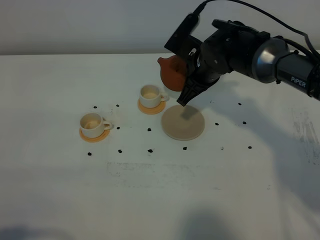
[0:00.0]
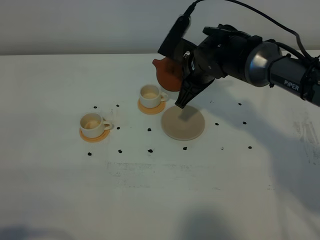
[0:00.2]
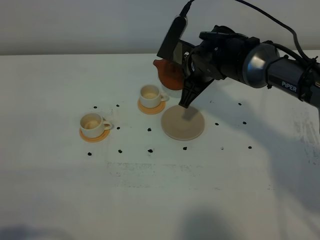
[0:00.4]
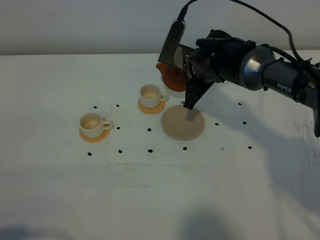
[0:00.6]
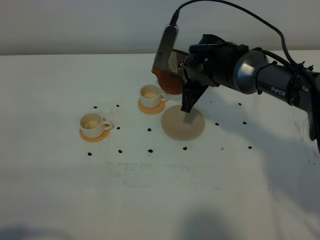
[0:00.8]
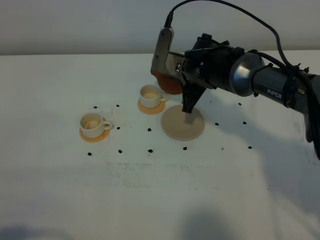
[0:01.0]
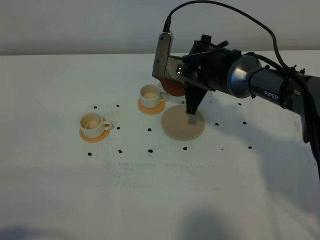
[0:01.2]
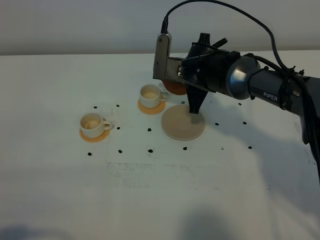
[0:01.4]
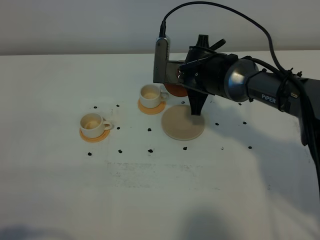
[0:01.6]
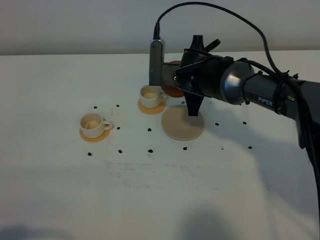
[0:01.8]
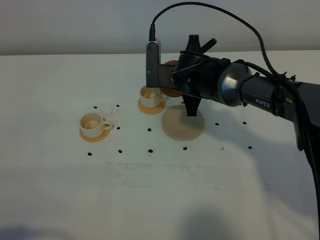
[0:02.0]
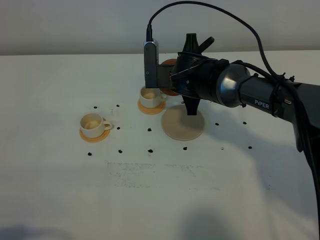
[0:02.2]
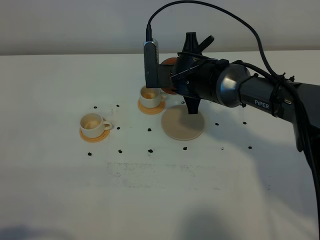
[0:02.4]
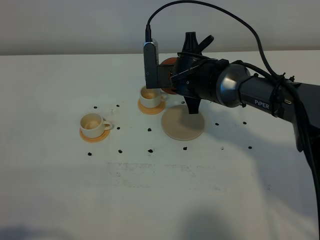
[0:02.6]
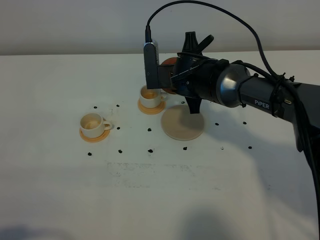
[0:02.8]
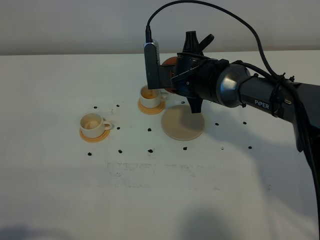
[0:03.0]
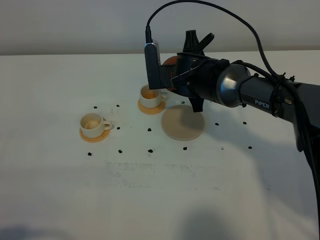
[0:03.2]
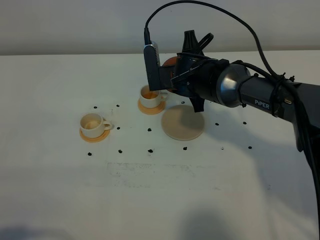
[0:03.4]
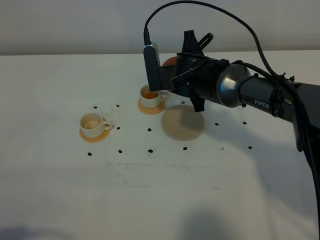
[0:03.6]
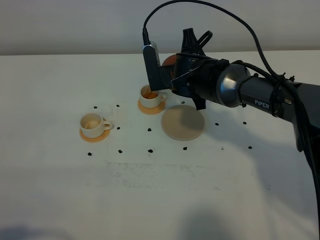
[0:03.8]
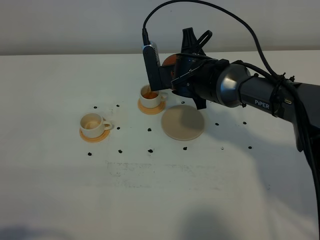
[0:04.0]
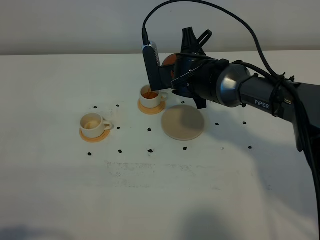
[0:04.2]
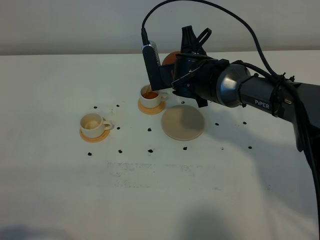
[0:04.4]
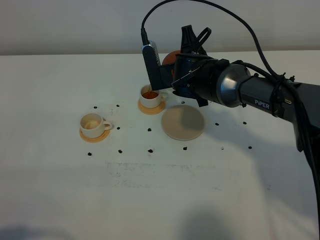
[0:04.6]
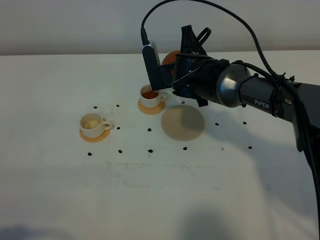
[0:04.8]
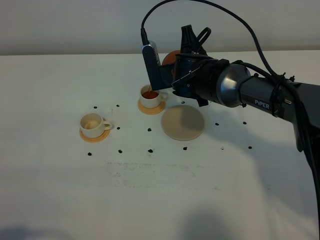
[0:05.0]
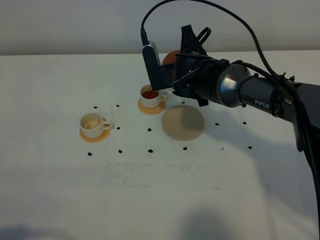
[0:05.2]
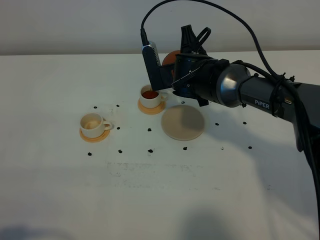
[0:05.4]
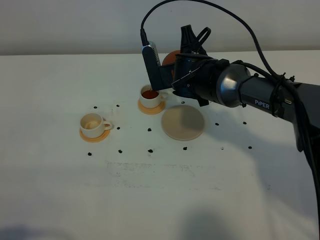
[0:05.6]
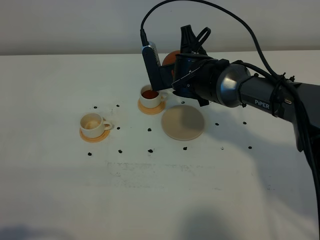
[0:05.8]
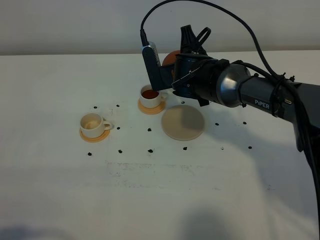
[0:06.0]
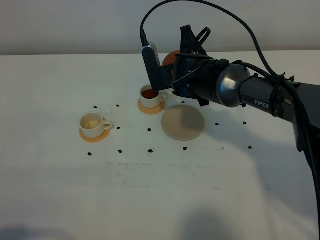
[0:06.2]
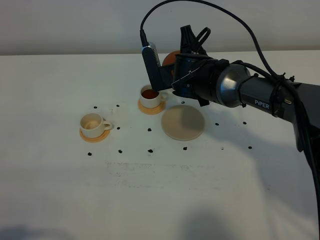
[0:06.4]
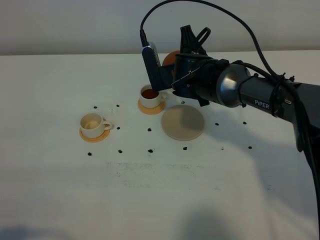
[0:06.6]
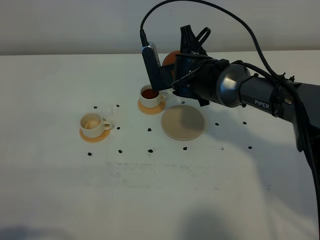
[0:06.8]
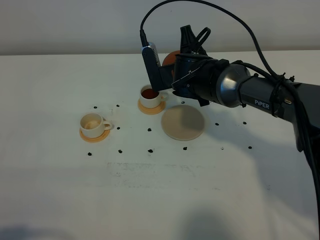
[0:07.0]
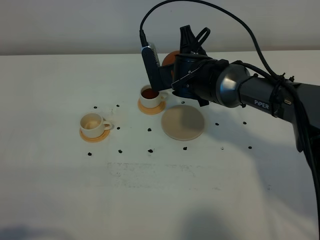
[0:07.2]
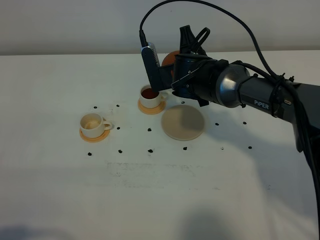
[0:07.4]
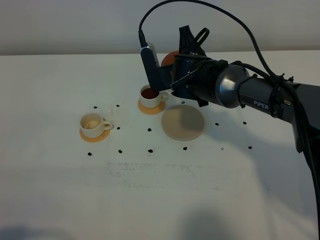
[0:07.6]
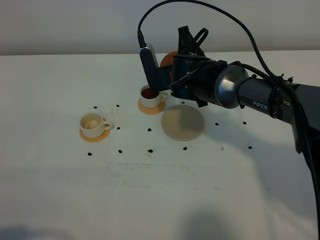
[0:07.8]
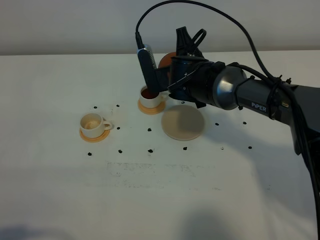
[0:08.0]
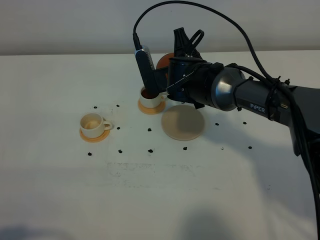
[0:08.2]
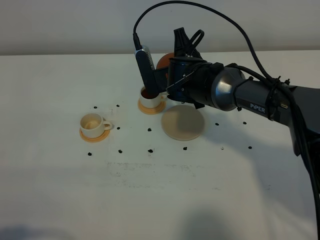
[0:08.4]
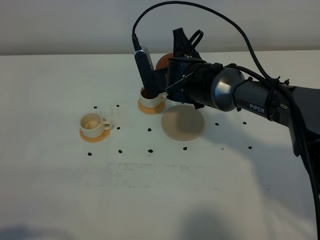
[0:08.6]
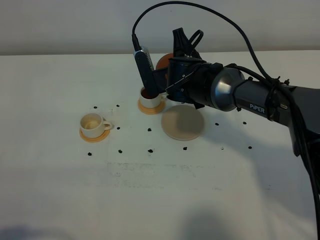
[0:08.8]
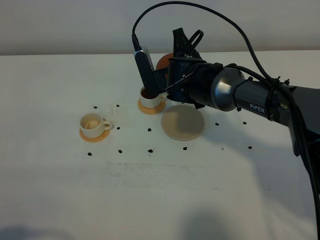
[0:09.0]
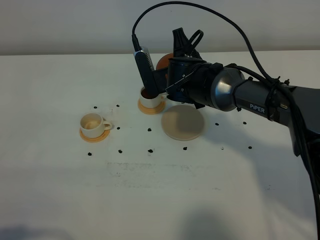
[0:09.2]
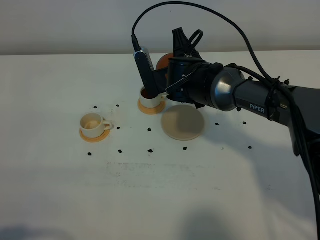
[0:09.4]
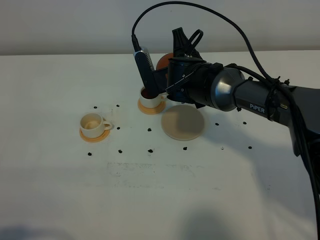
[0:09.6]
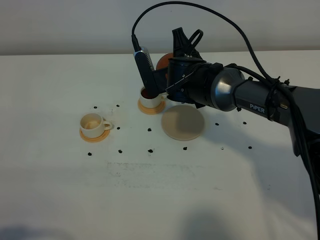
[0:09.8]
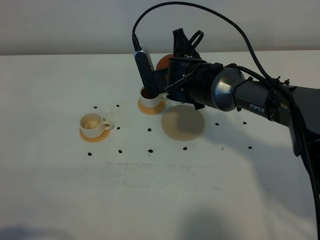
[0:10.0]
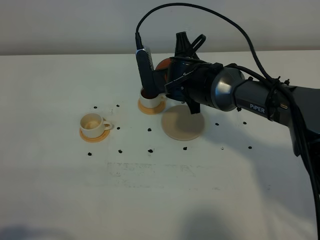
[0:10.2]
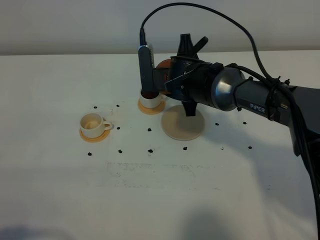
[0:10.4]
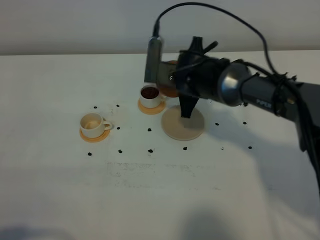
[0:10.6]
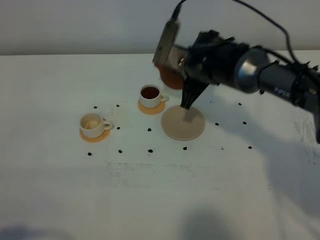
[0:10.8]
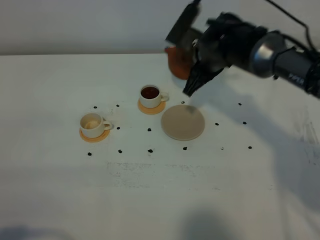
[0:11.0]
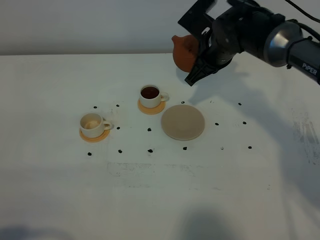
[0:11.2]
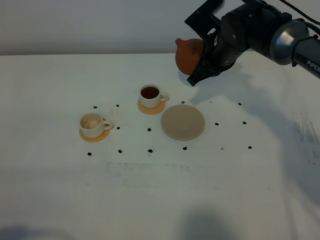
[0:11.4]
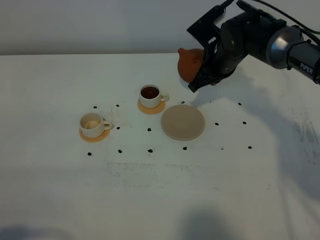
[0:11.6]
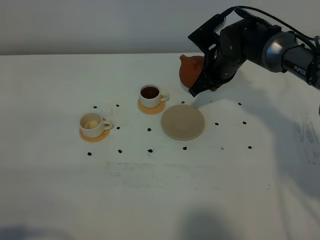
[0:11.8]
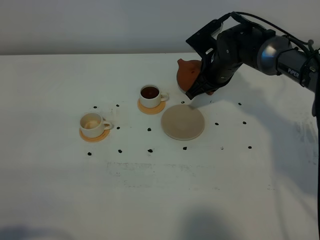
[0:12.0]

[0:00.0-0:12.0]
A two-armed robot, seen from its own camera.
Task of the whole recording: grasp the brown teapot and pour the tea into the two white teacups one by one, put the brown teapot back in its original place.
0:01.6 to 0:04.4: There are only small adjustments of the grippers.
0:04.4 to 0:09.0: Both grippers stay about where they are.
0:09.0 to 0:10.4: The grippers make only small movements.
0:10.4 to 0:12.0: The right gripper shifts some 10 cm to the right and forward.

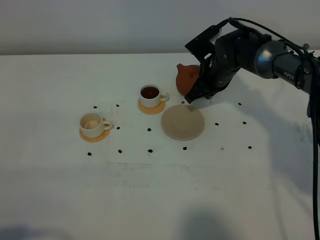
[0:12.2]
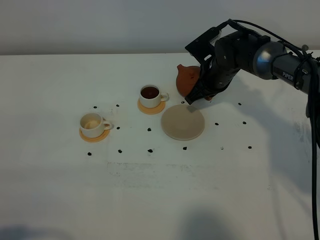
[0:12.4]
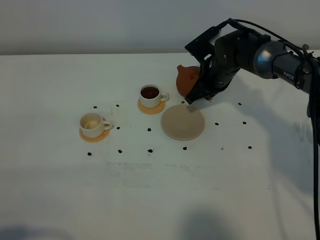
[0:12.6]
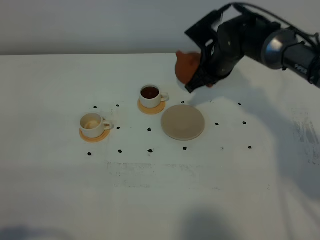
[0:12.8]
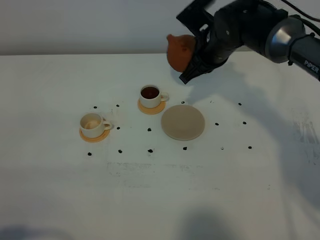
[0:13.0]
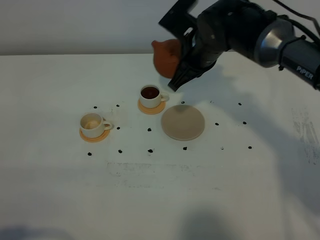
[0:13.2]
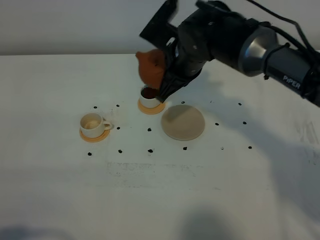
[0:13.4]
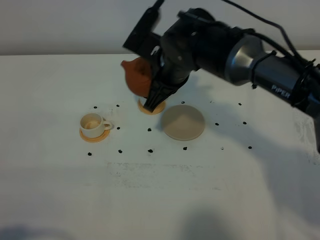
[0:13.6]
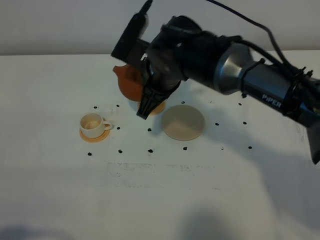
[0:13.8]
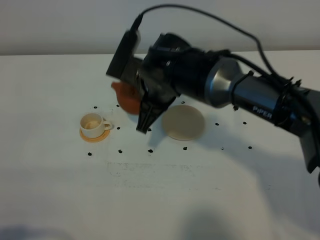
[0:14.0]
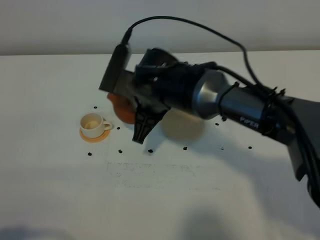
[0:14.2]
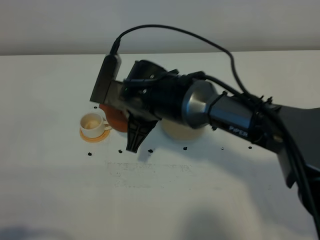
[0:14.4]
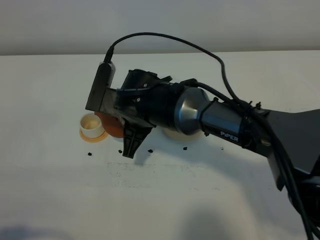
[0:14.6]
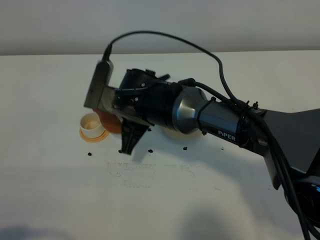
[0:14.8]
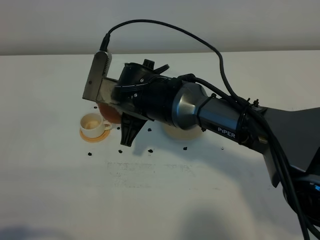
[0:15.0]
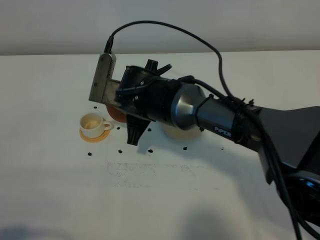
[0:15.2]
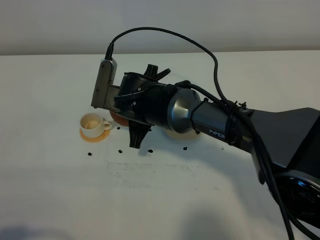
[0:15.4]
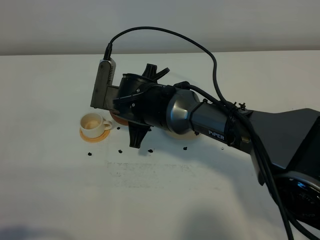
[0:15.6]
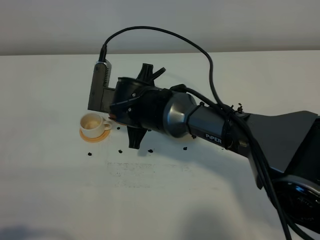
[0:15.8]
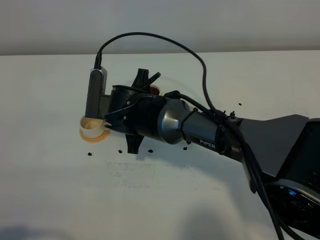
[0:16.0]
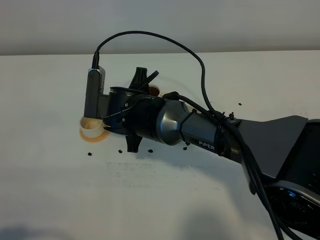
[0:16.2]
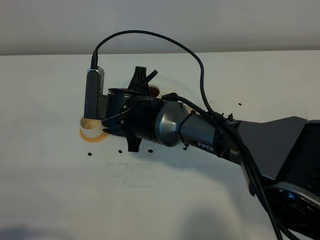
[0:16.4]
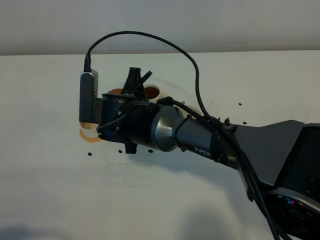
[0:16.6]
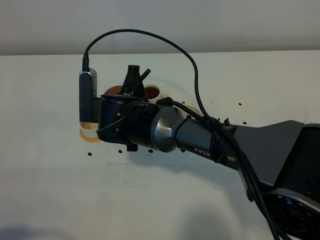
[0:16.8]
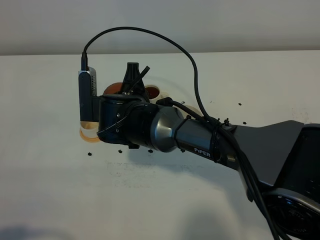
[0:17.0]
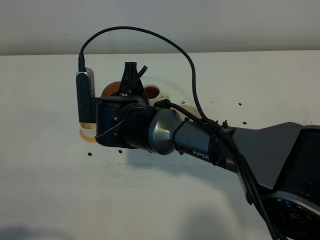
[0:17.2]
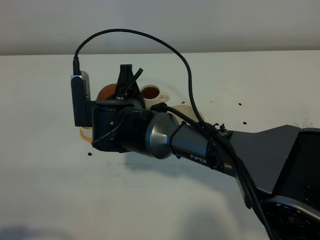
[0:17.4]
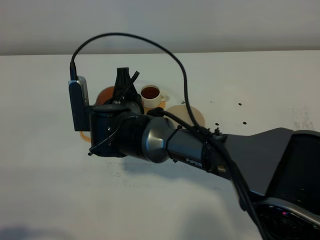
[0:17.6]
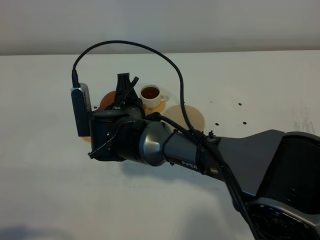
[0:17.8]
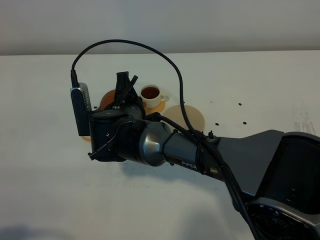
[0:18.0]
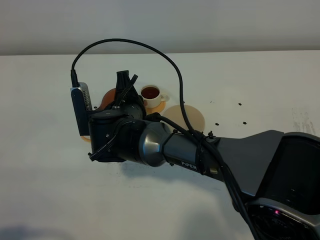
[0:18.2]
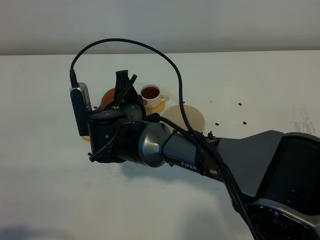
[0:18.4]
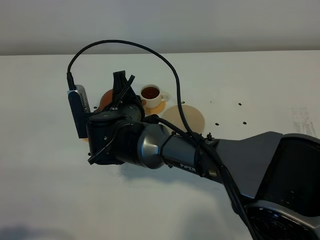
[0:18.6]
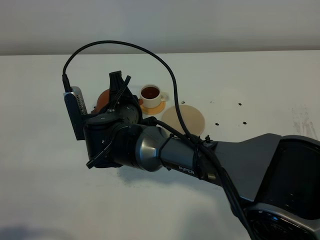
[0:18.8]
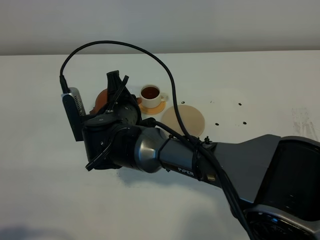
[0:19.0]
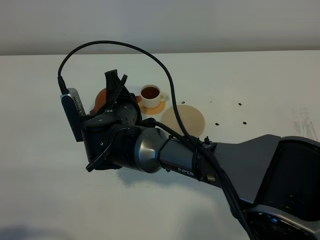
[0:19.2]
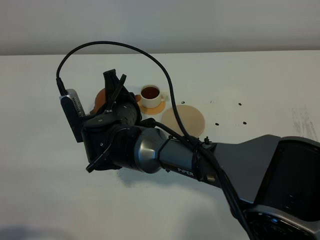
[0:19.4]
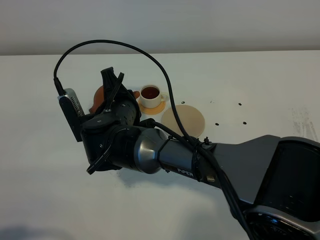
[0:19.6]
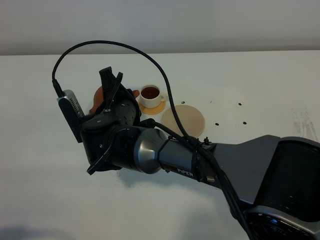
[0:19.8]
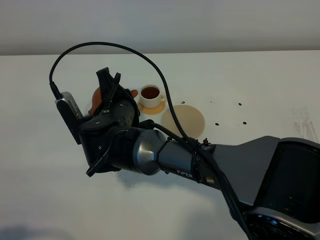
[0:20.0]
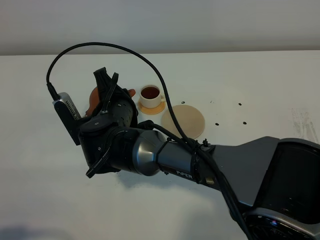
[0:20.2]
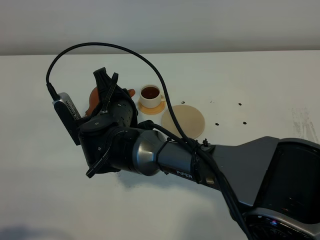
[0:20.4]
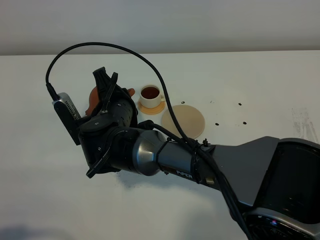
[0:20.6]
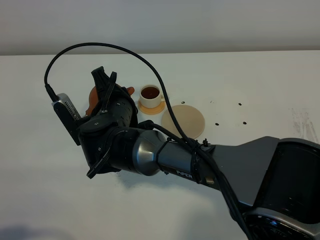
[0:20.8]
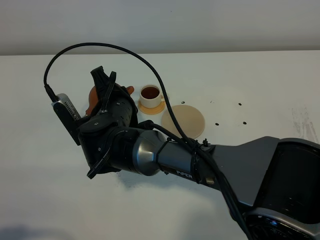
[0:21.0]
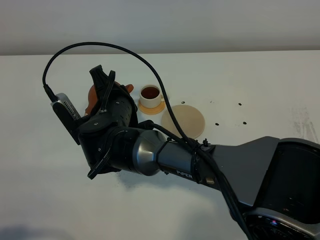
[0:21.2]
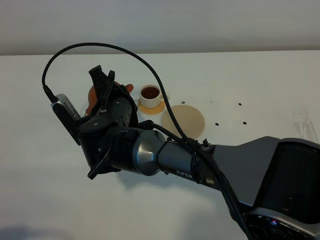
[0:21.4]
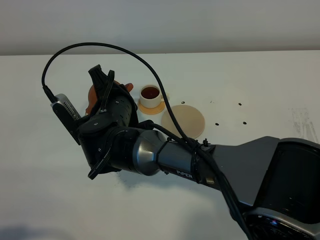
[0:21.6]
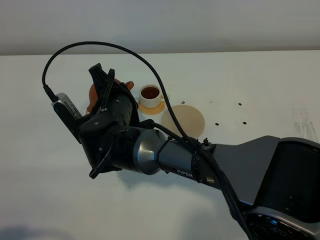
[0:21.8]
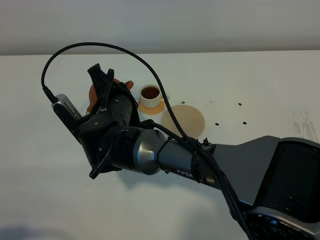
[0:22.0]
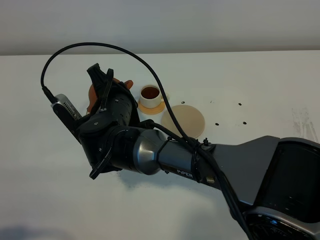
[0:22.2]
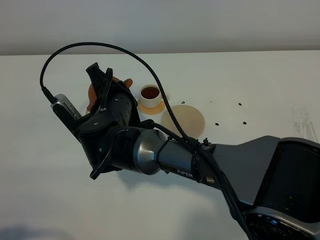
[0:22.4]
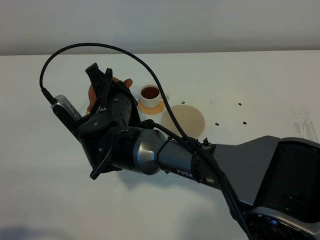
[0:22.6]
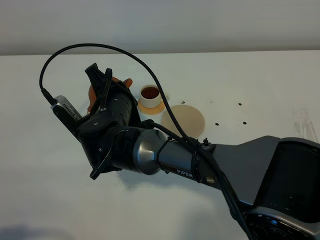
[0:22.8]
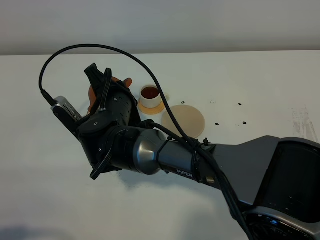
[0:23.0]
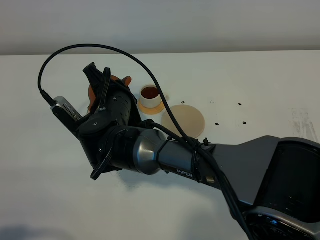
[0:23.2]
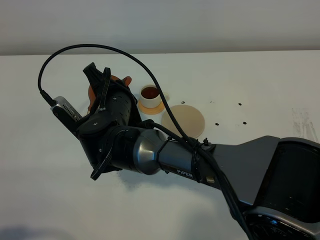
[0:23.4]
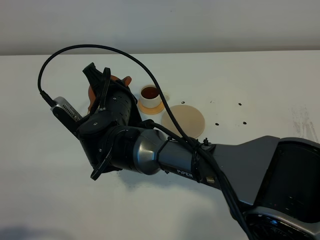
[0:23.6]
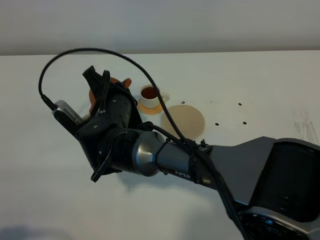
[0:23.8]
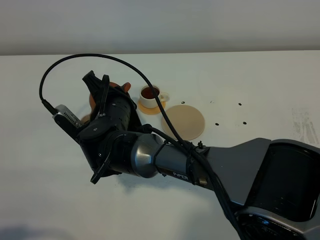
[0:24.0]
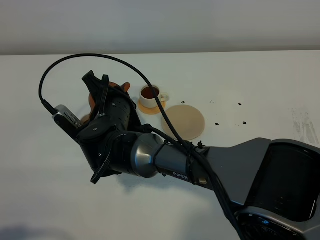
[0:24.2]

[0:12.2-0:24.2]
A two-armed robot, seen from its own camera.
Task of the whole recording: grasp the brown teapot and pour the tea into the two white teacups one by one, put the brown teapot back in its original place.
0:12.2 to 0:13.8: The right gripper goes roughly 20 cm backward, to the left and upward.
0:13.8 to 0:15.2: The right gripper heads downward, covering roughly 5 cm.
0:18.2 to 0:19.8: The grippers move only a little.
0:19.8 to 0:24.2: There are only small adjustments of the grippers.
